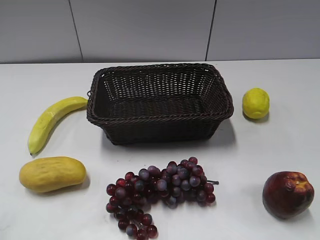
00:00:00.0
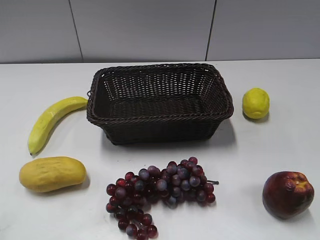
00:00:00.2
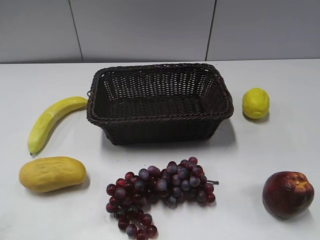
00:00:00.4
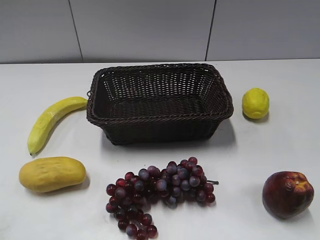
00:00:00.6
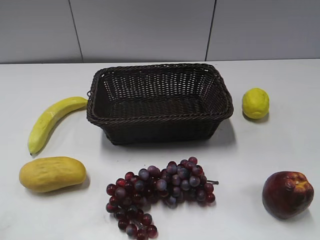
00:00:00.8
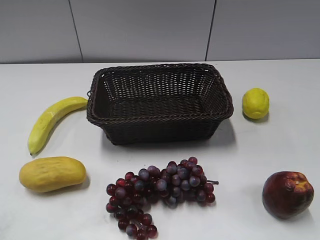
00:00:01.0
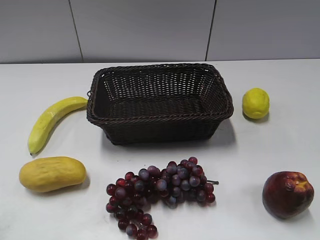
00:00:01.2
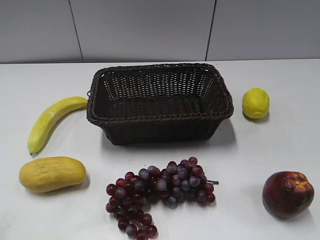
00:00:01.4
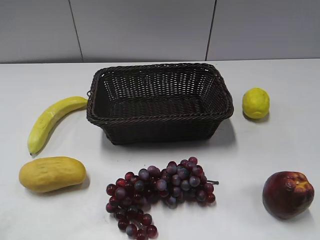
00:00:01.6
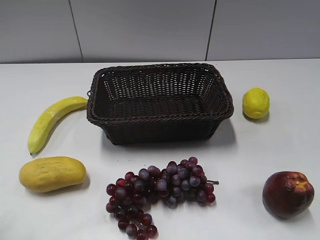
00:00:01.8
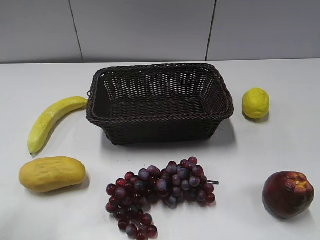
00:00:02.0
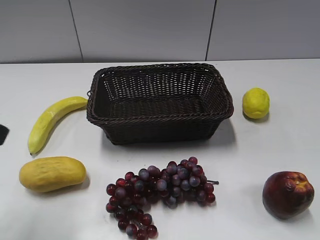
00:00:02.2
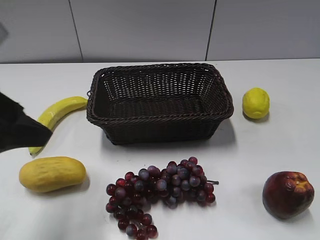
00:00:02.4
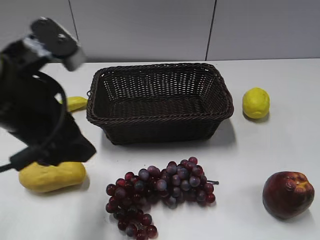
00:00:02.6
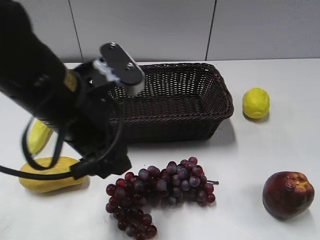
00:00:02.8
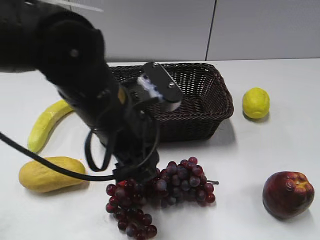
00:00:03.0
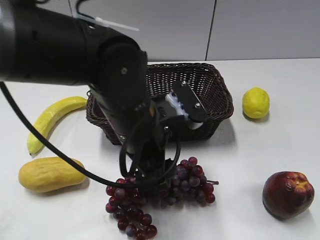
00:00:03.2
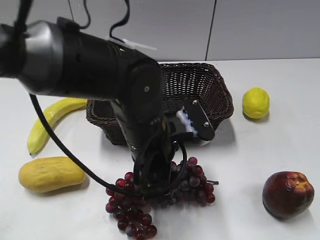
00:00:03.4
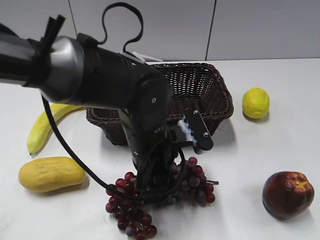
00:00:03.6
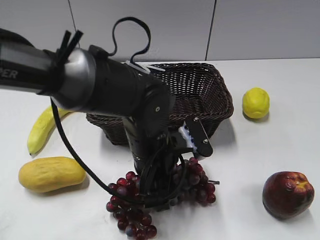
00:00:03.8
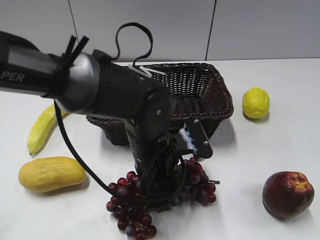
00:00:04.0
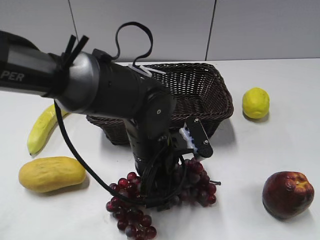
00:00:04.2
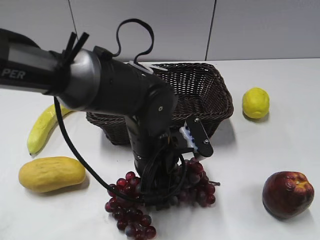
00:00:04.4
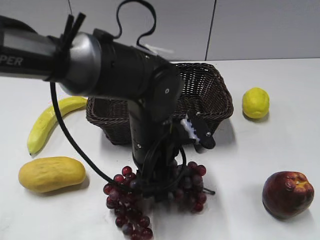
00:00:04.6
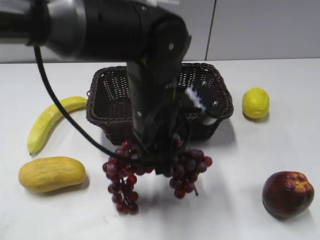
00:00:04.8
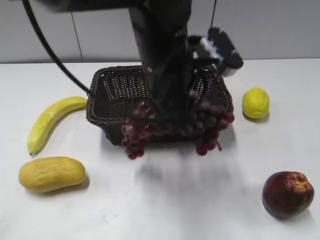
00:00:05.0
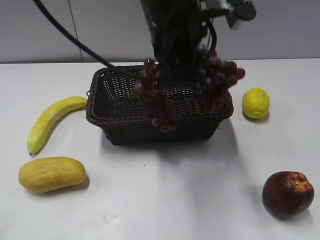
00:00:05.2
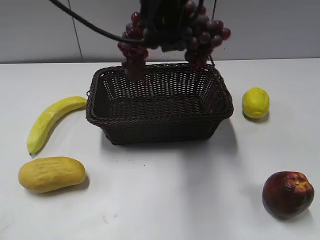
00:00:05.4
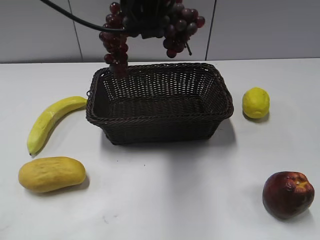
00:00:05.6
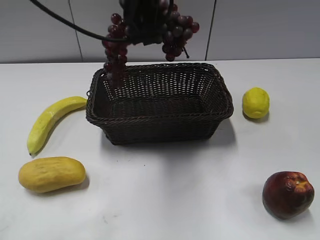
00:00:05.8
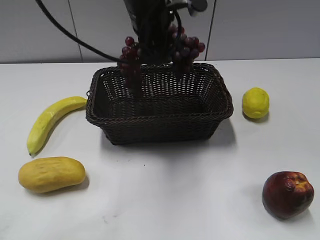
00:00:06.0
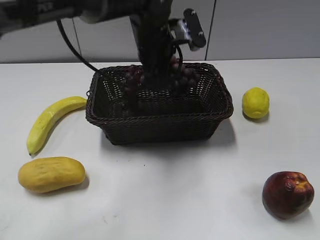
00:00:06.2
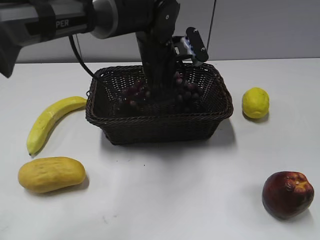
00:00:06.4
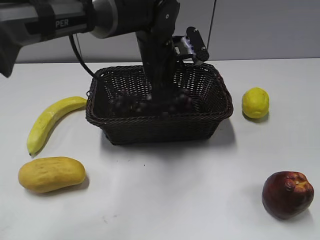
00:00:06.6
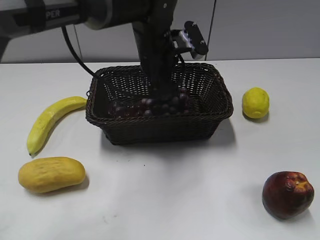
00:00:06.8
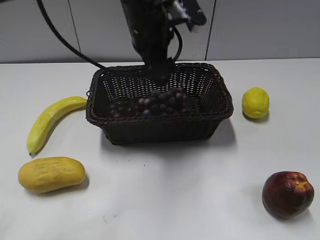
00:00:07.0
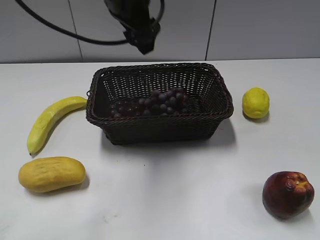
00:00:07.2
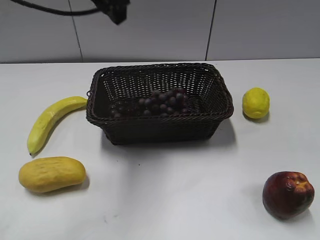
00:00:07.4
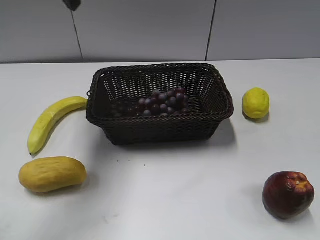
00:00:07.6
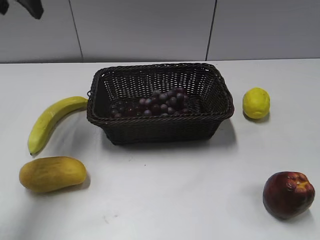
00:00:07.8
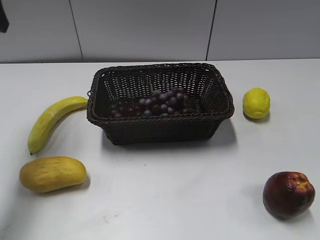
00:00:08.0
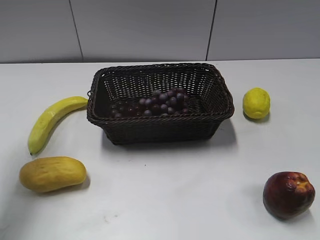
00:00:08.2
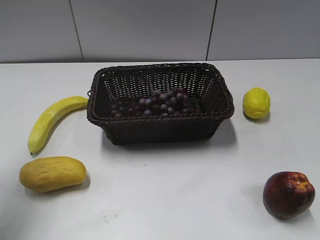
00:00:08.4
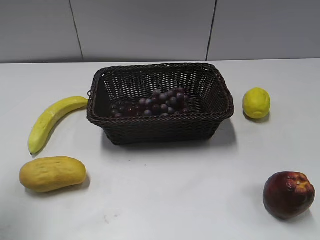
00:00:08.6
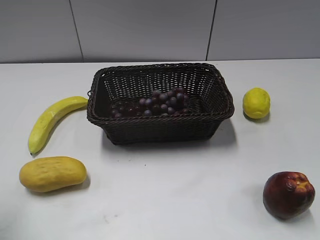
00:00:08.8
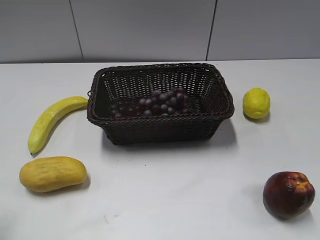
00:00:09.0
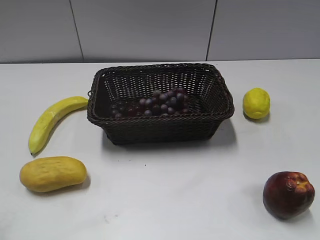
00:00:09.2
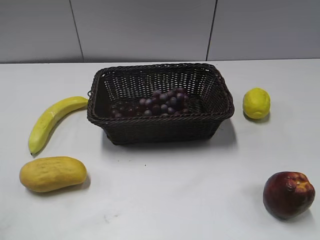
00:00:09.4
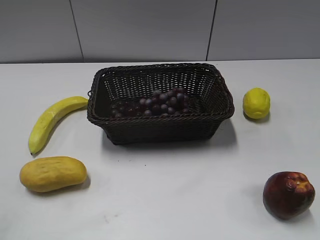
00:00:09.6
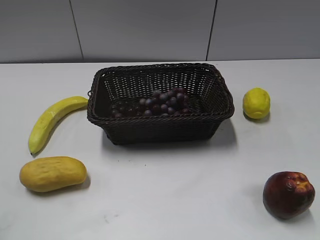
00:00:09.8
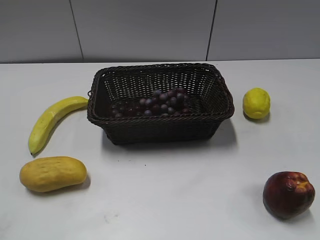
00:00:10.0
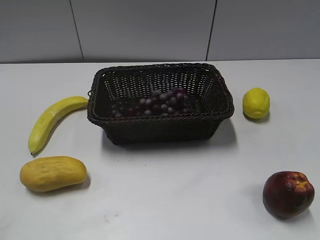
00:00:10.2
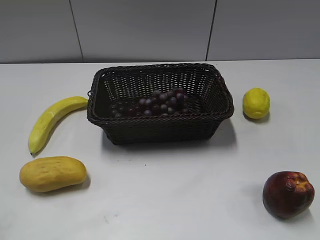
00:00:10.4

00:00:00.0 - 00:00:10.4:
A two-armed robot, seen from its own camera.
Step, 00:00:02.2 - 00:00:04.2: Grasp the grape with left gripper.
Step, 00:00:04.4 - 00:00:06.6: Place the grape in the basket with left gripper.
00:00:01.4 - 00:00:03.0: The left gripper moves to the right and forward, roughly 30 cm.
00:00:03.0 - 00:00:04.4: The left gripper moves downward and to the right, some 15 cm, and closes up.
00:00:04.4 - 00:00:06.0: The left gripper shifts about 25 cm upward and forward.
00:00:06.0 - 00:00:07.4: The left gripper moves some 10 cm downward and comes back, and opens up.
00:00:07.4 - 00:00:09.0: The left gripper travels to the left and backward by roughly 35 cm.
